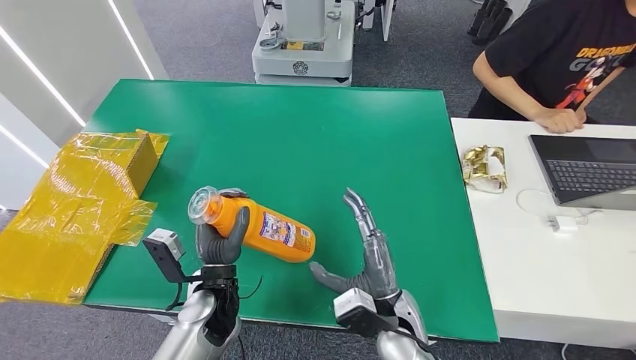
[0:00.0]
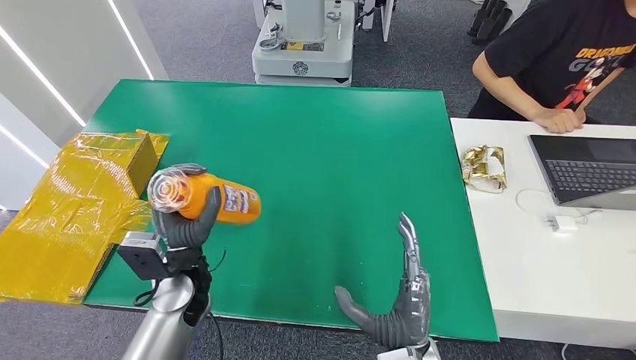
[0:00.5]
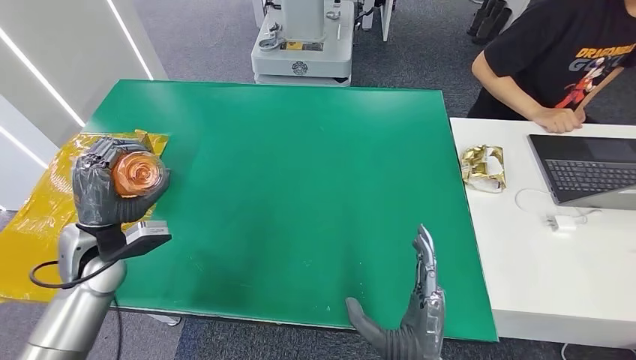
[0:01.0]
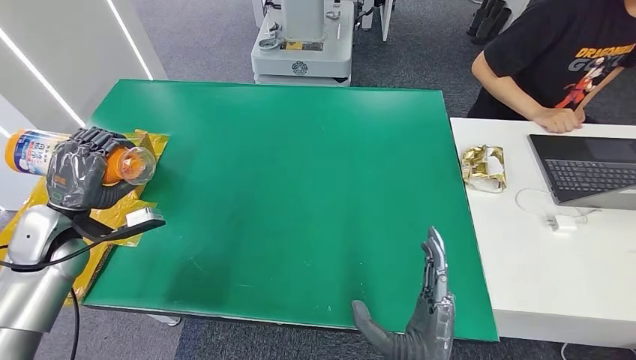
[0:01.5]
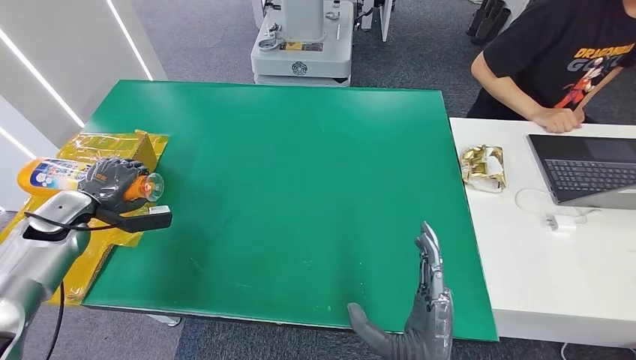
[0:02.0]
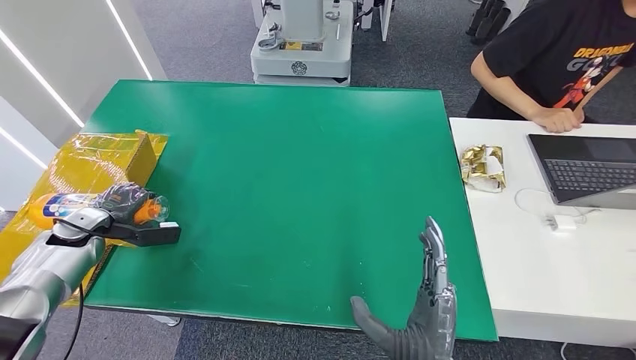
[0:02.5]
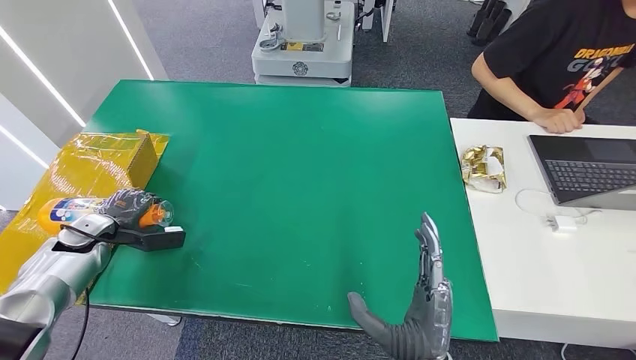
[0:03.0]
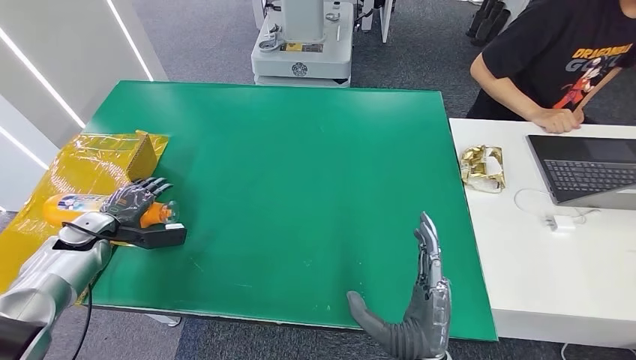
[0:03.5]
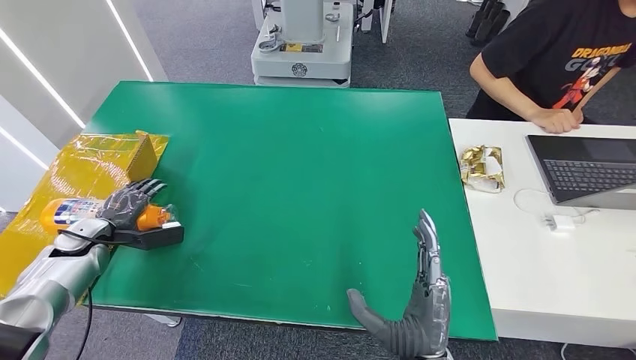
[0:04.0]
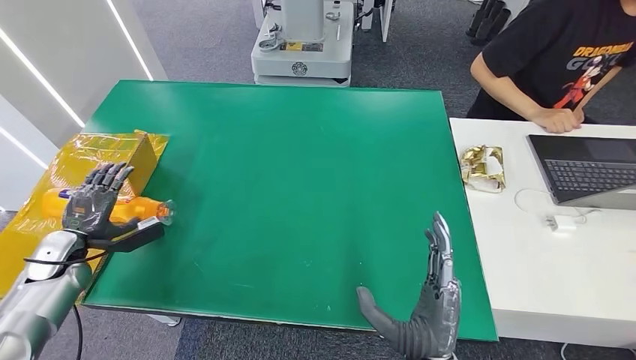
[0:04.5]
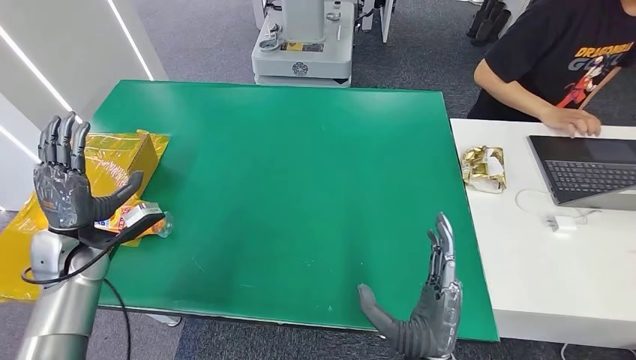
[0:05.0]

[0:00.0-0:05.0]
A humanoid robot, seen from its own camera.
Step, 0:00.0 to 0:05.0: Turn the bottle to the front side.
0:00.0 to 0:02.5: The right hand is displaced backward by roughly 10 cm. Meanwhile the left hand heads to the left, covering approximately 35 cm.
0:02.5 to 0:05.0: The left hand goes approximately 10 cm to the right, backward and upward.
